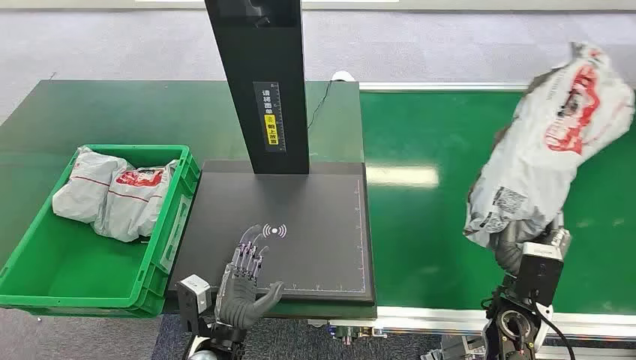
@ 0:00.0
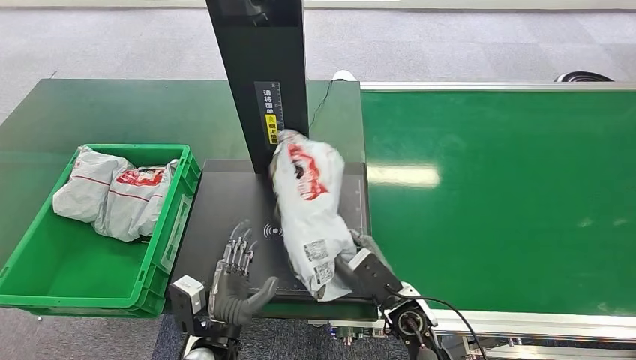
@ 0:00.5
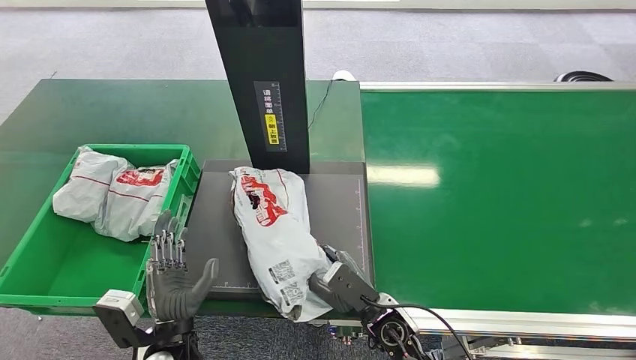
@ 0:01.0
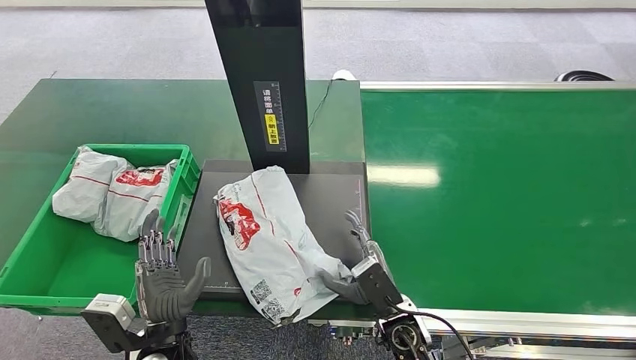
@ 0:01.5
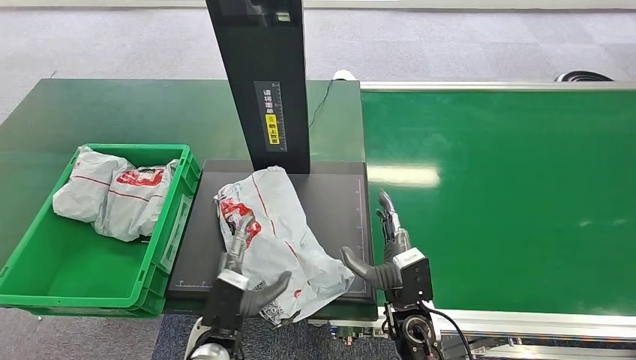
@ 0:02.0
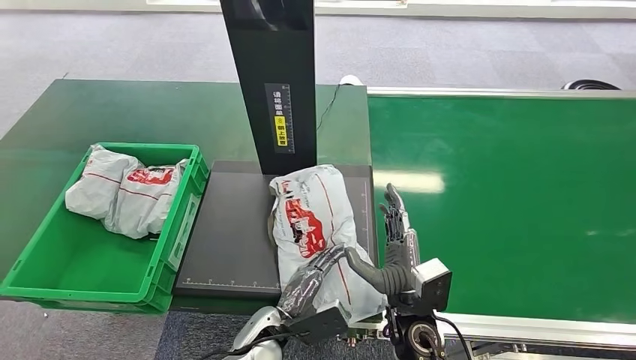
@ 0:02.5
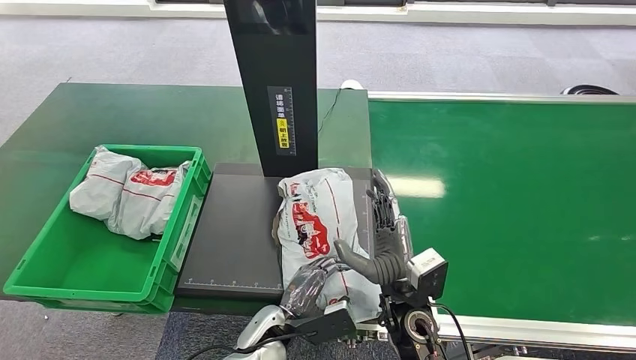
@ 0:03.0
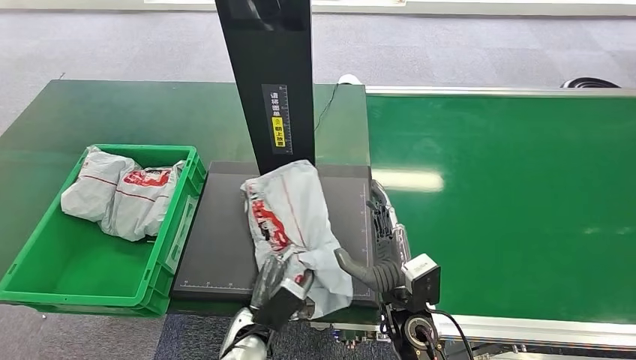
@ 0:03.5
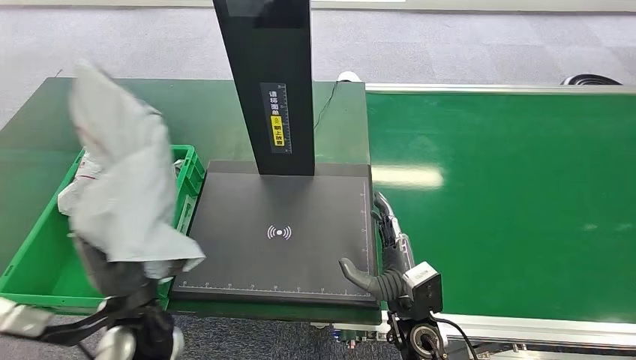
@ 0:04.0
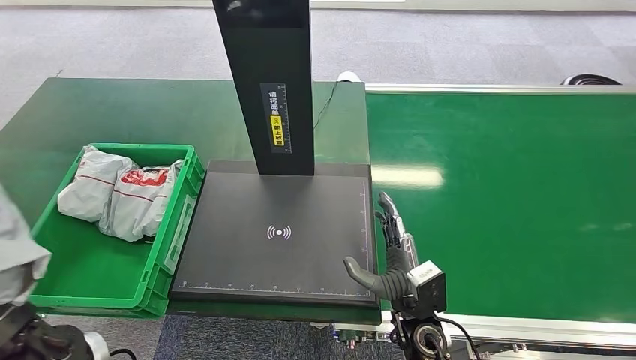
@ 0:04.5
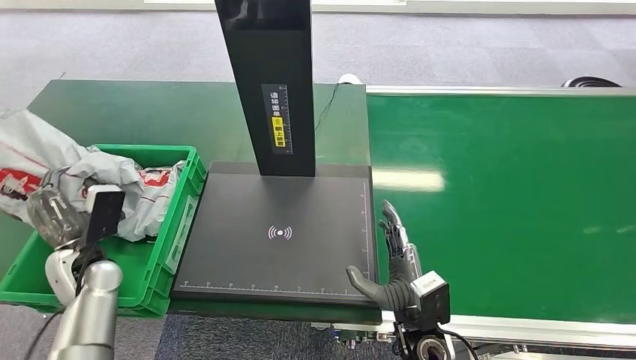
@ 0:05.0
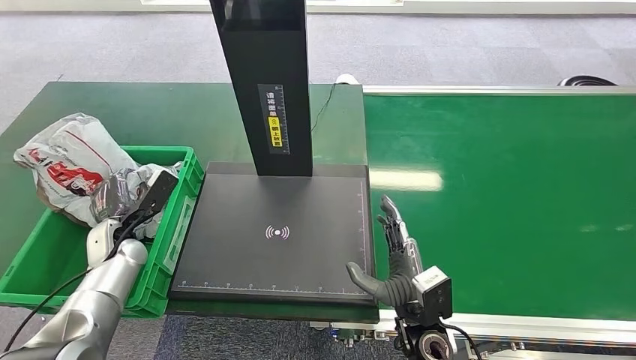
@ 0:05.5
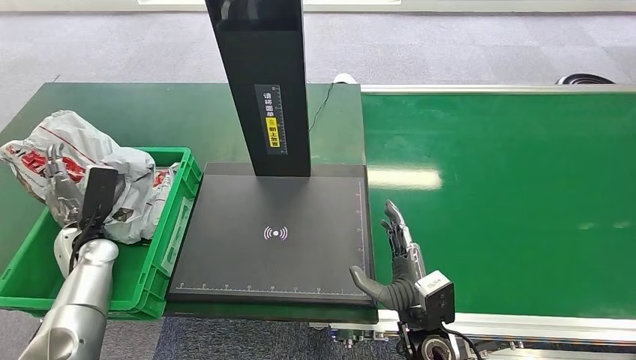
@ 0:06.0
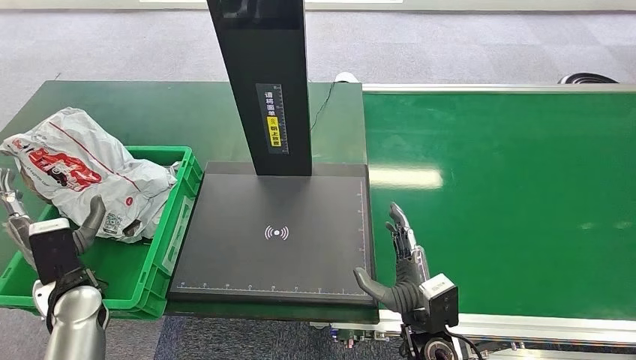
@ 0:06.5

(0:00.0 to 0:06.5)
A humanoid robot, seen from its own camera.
0:04.5 - 0:06.5: The left hand goes roughly 15 cm downward, forward and to the left.
